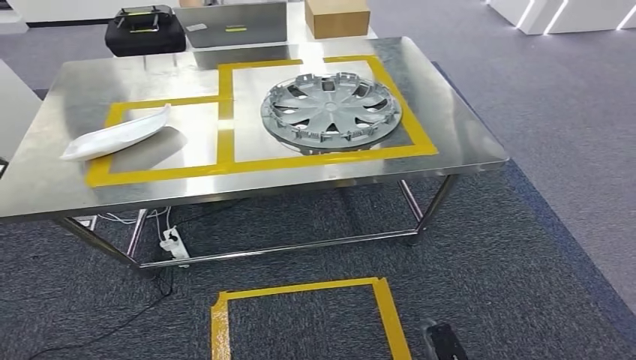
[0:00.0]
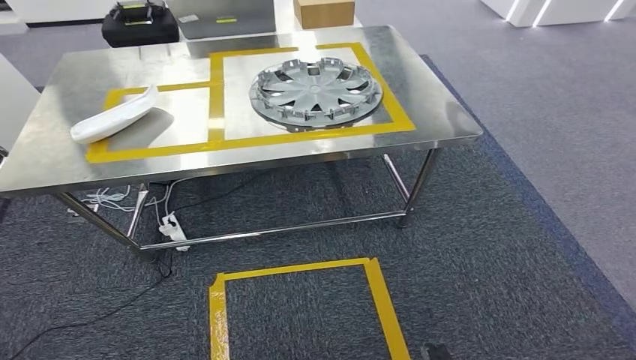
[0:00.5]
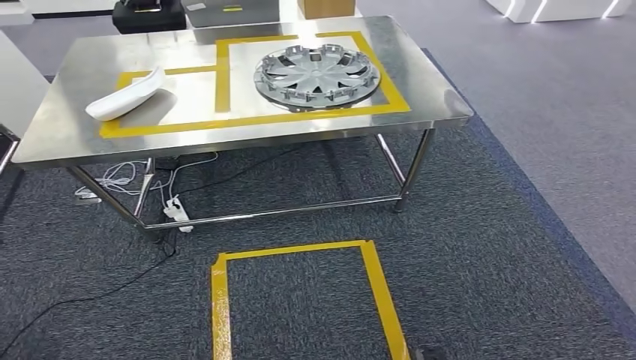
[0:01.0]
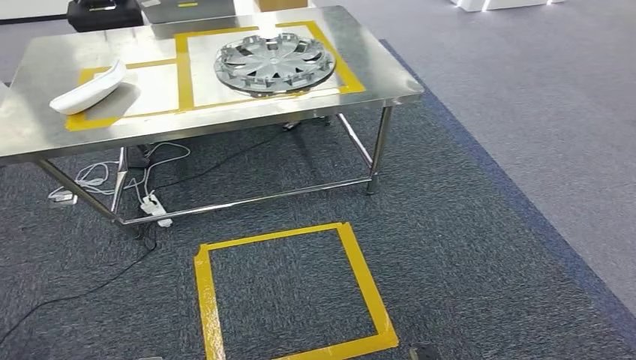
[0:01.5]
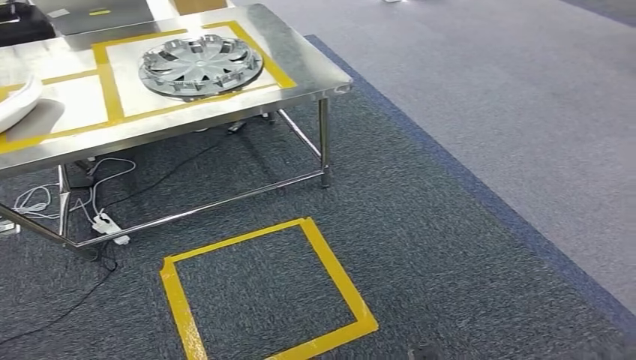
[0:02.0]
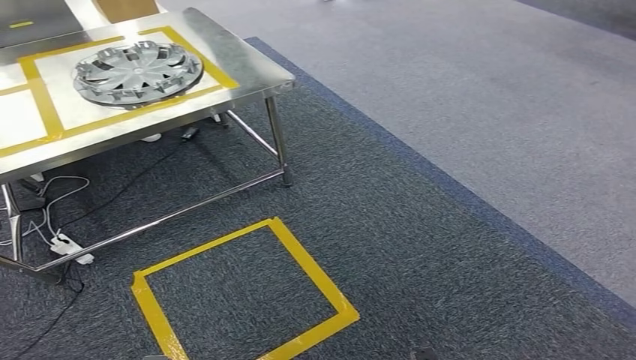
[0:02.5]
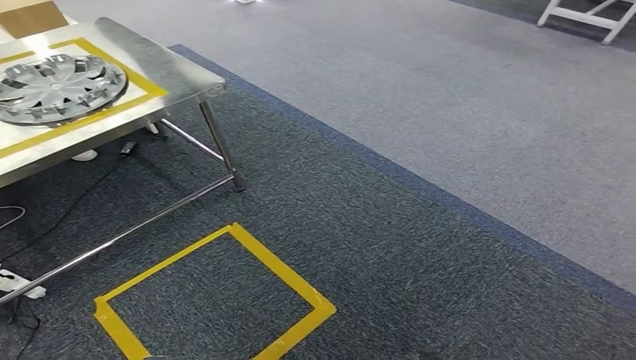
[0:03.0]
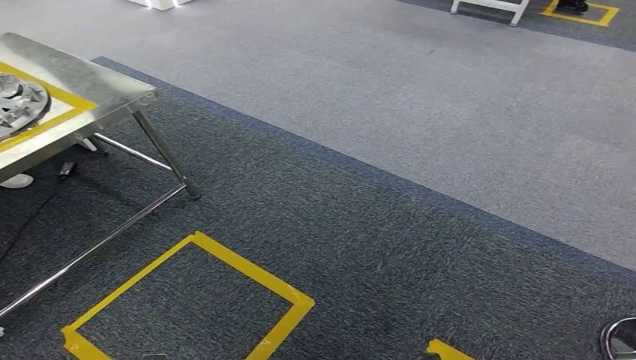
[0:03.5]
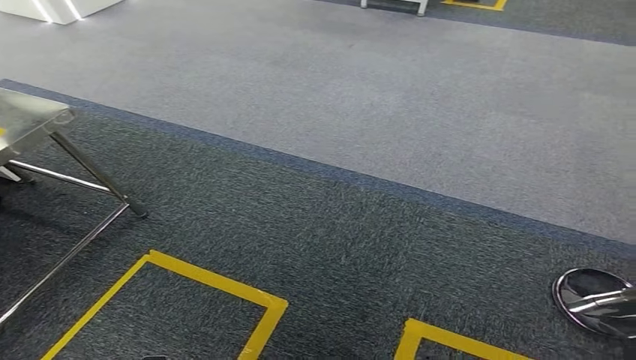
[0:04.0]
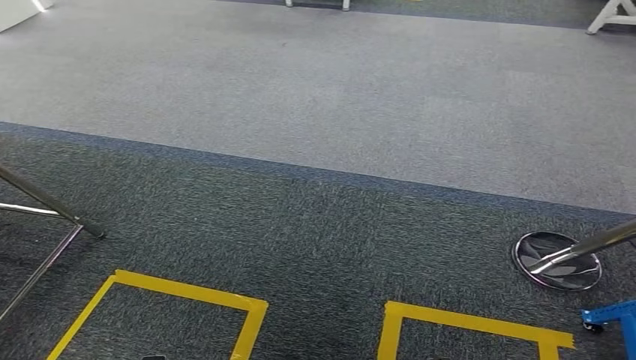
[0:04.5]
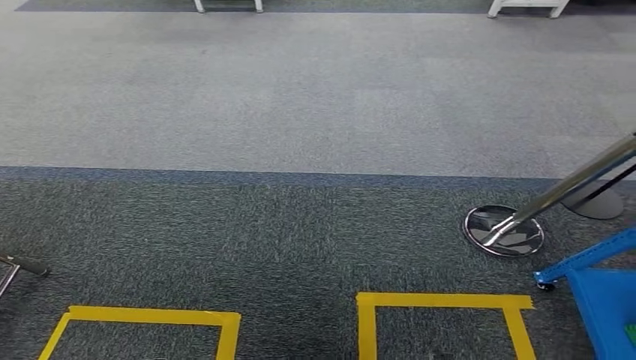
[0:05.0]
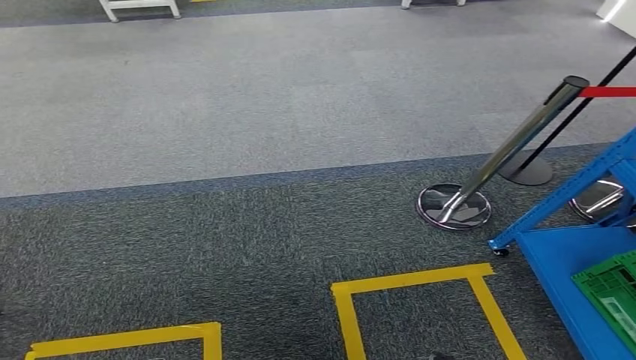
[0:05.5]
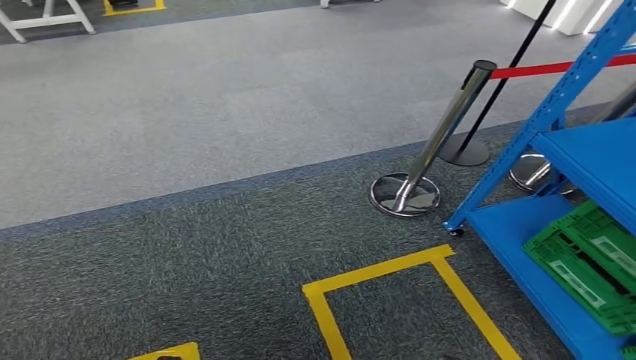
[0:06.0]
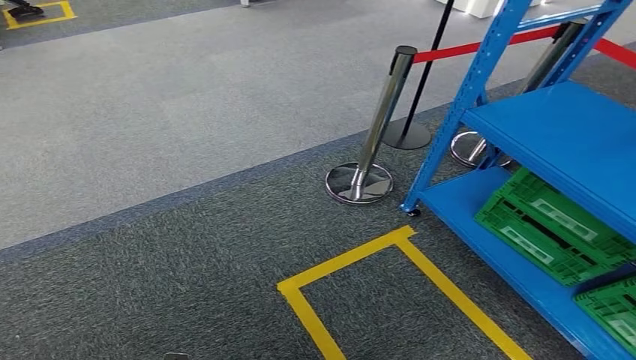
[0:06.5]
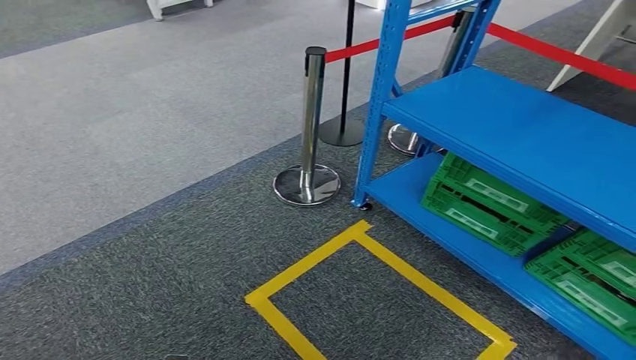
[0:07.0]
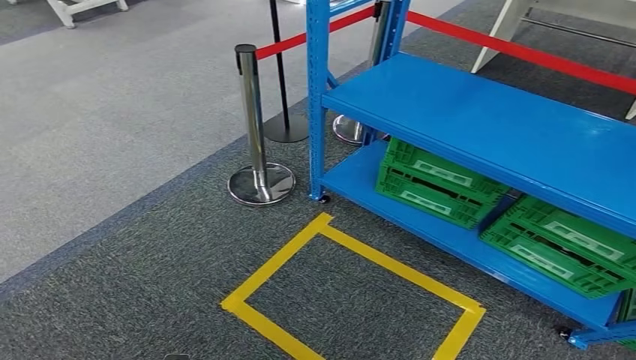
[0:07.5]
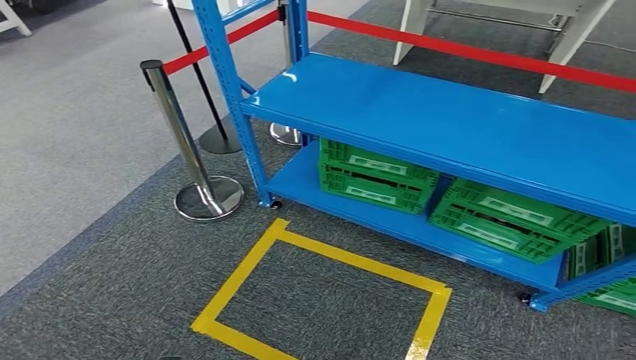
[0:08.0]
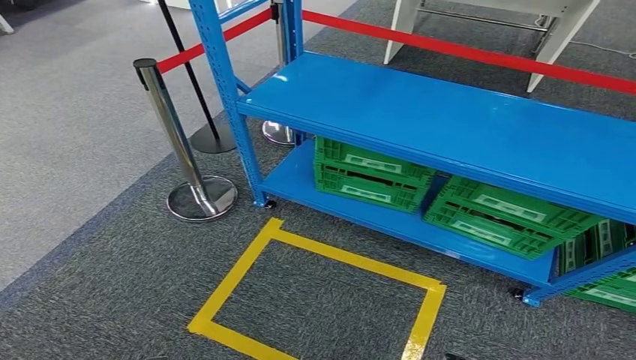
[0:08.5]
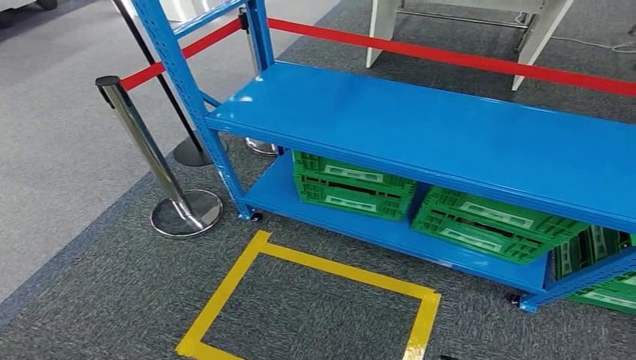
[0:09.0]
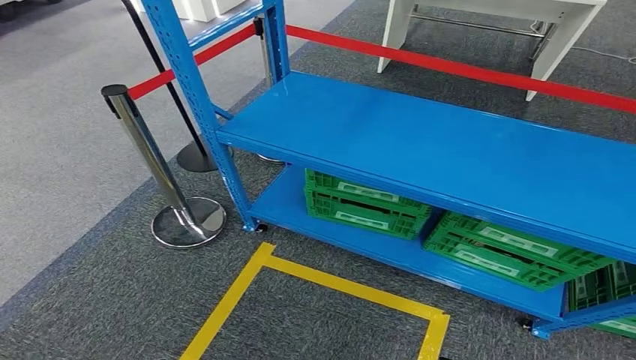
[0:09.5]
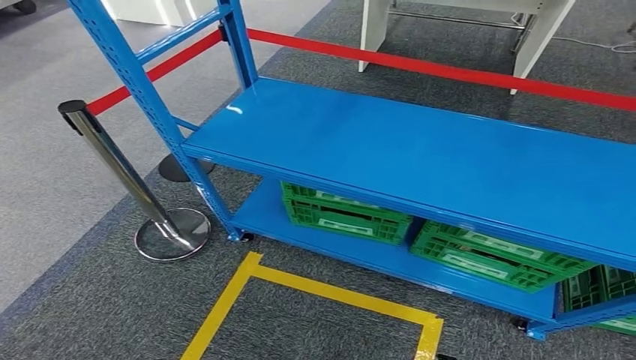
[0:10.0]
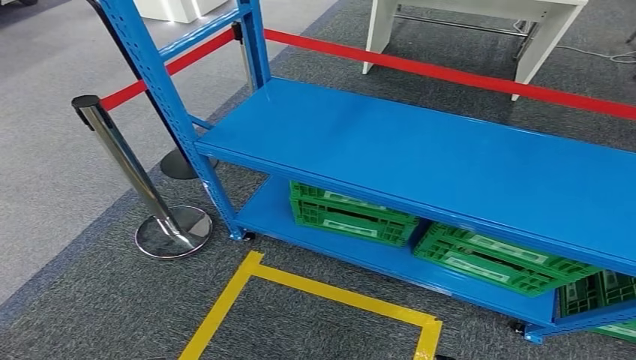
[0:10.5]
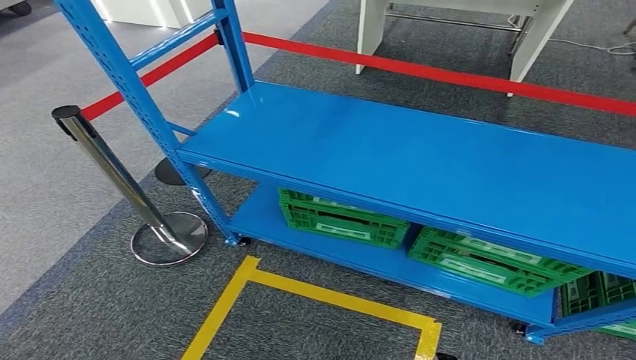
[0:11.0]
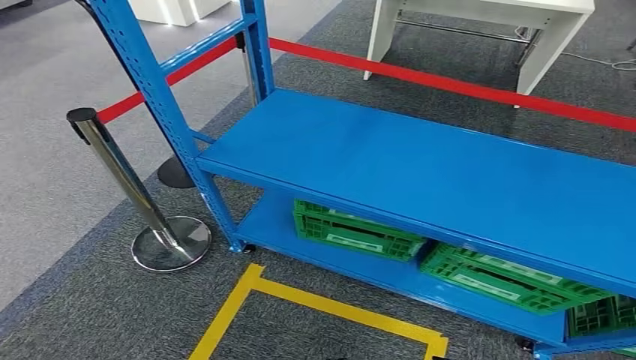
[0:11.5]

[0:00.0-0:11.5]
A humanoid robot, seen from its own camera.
Step, 0:00.0 to 0:11.0: Move to the initial position of the workbench.

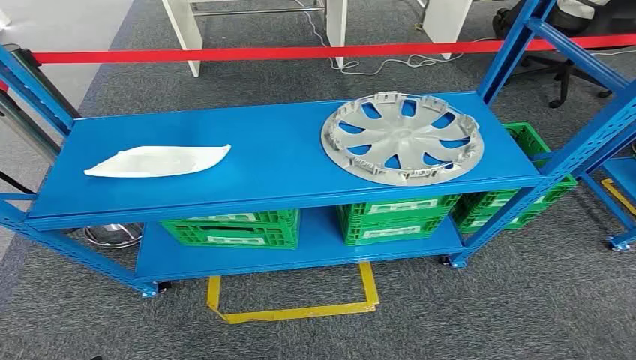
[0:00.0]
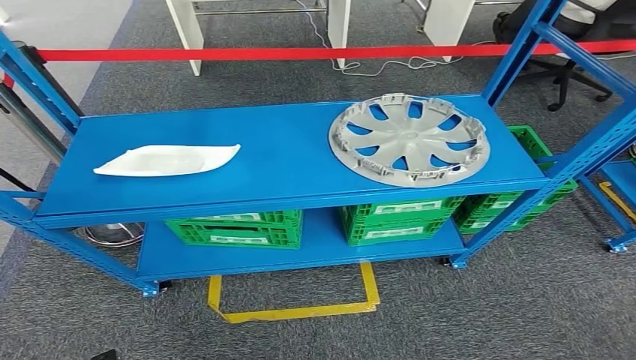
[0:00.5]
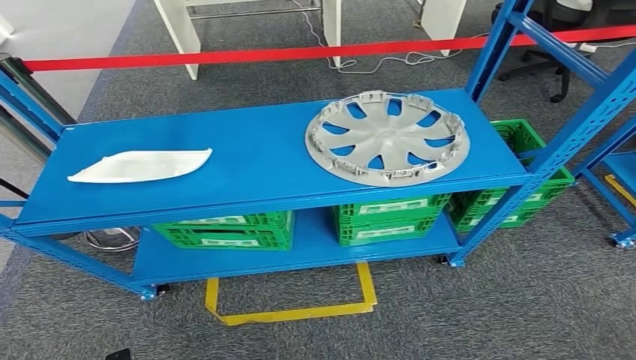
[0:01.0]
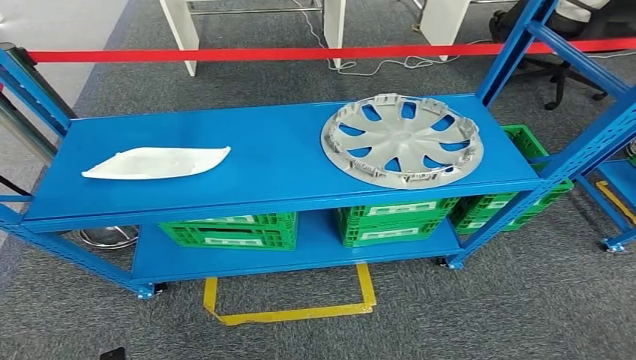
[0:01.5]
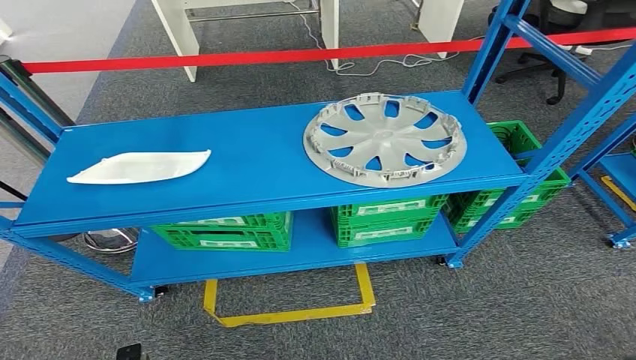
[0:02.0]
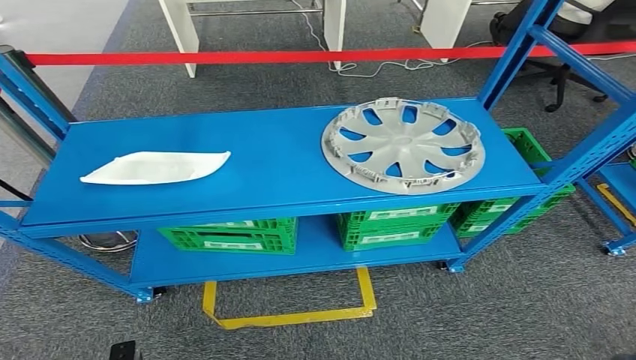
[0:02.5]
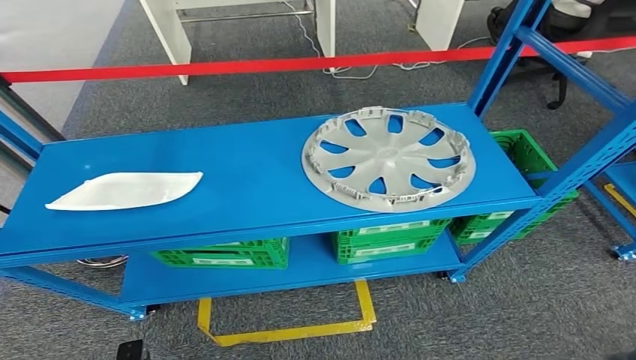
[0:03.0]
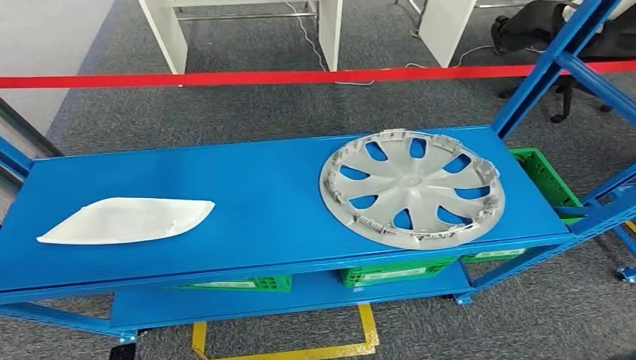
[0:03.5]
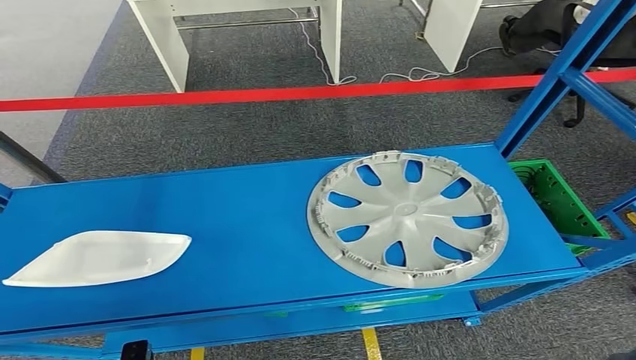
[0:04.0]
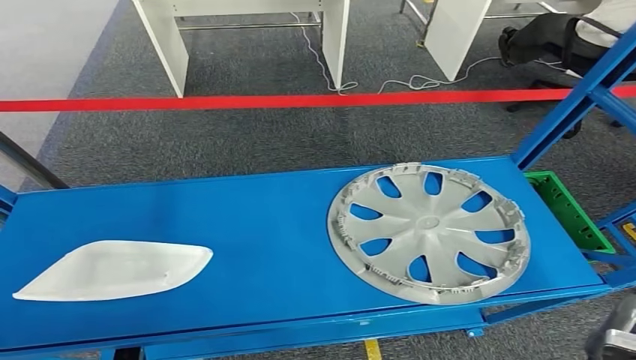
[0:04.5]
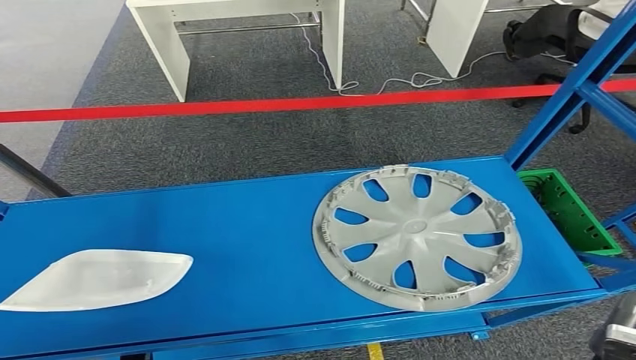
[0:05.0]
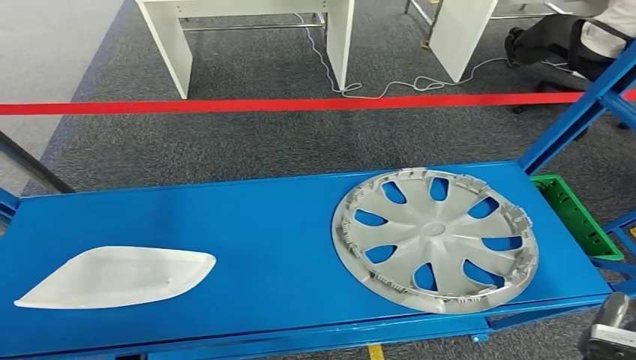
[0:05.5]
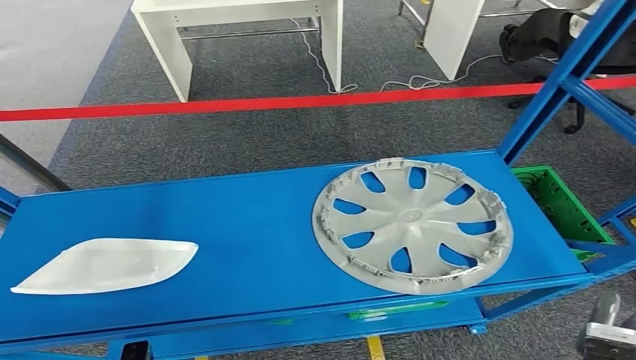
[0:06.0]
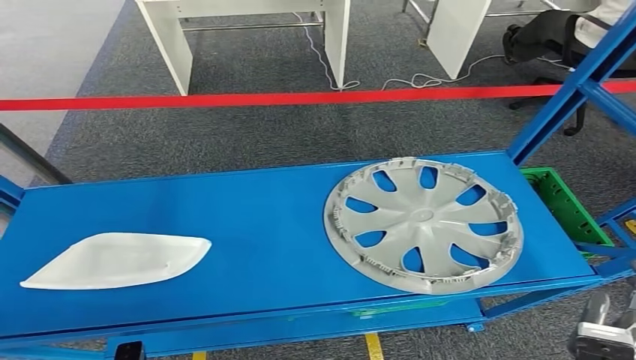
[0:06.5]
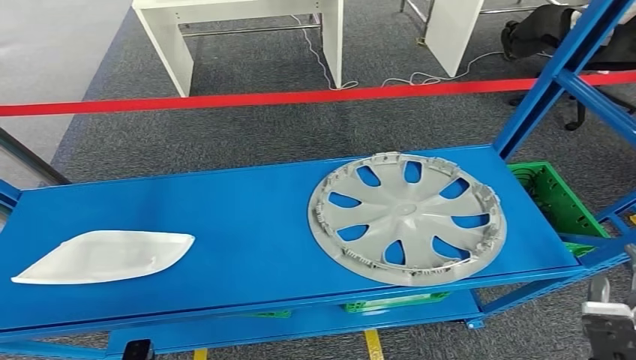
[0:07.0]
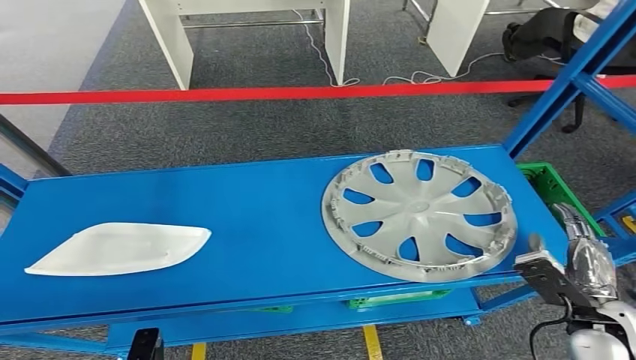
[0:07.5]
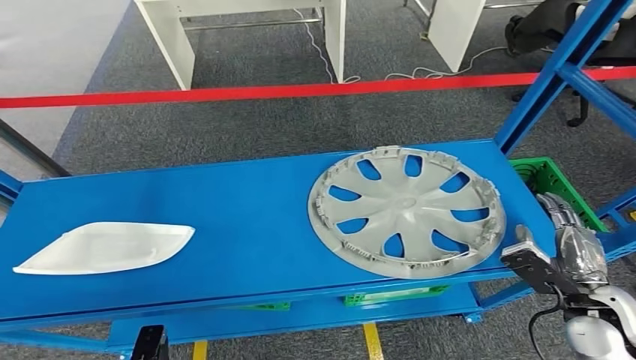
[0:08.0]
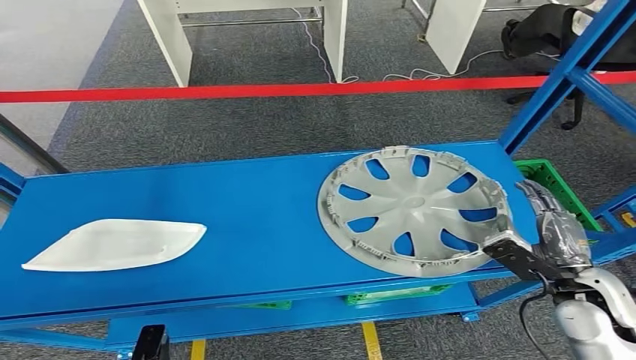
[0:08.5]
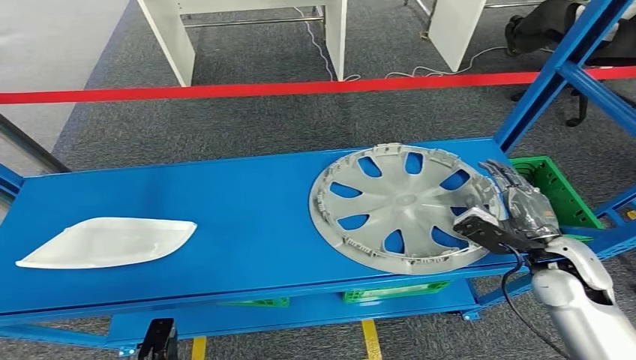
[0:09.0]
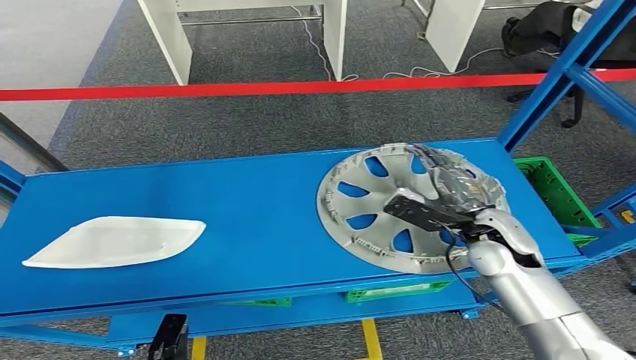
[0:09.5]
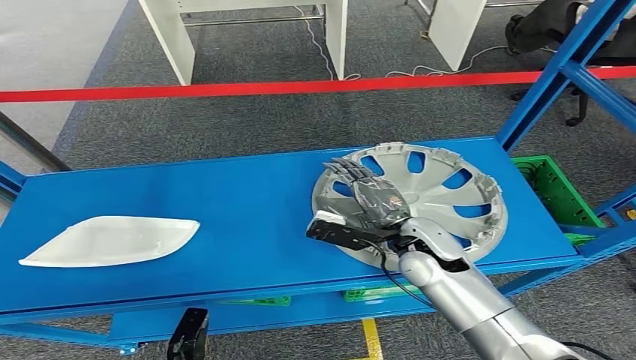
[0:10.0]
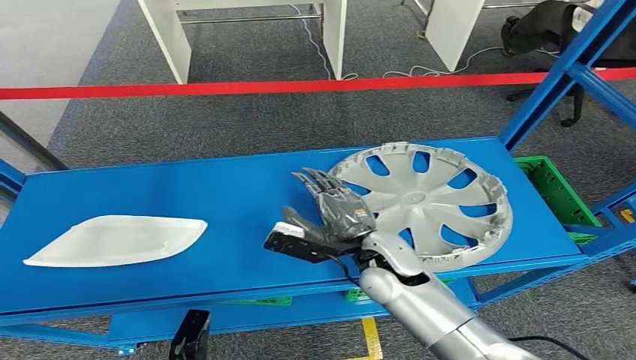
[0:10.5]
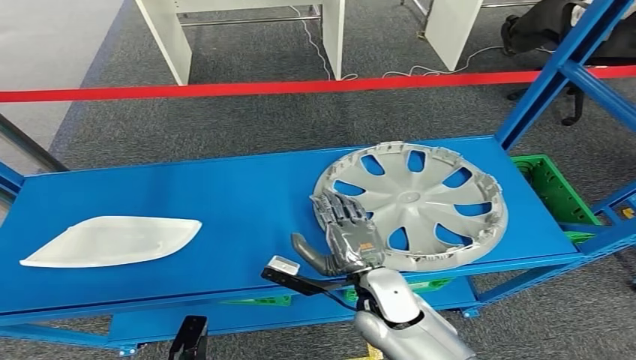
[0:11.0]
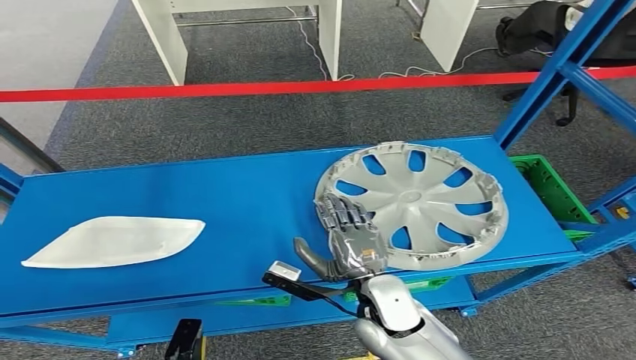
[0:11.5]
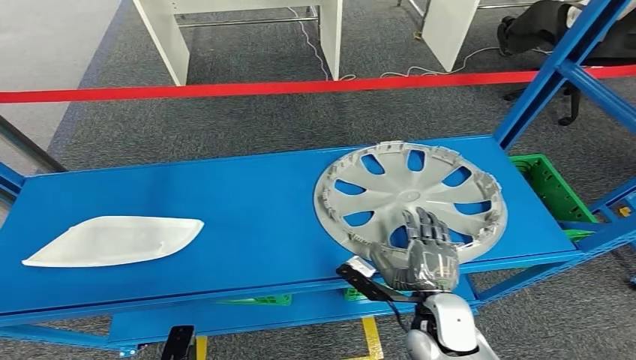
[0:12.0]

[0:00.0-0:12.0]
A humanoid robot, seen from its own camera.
0:10.0 to 0:12.0: The right hand moves backward and downward, approximately 15 cm.
